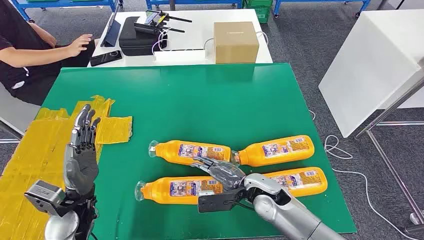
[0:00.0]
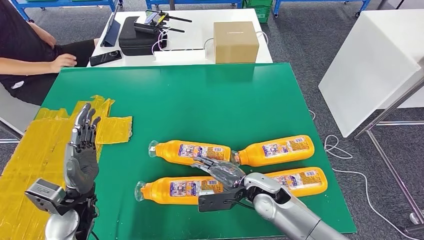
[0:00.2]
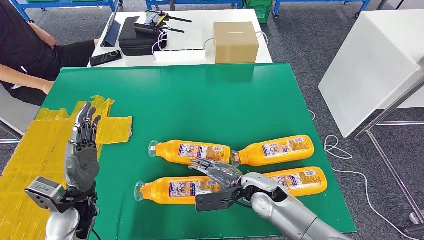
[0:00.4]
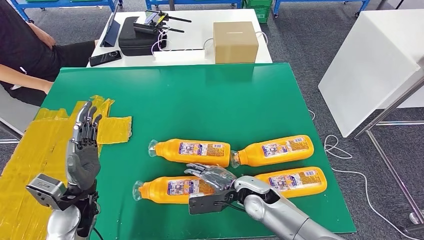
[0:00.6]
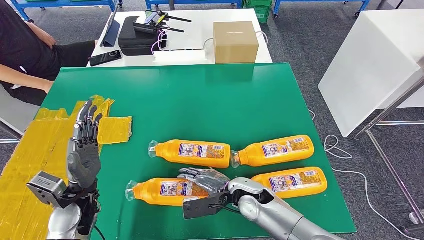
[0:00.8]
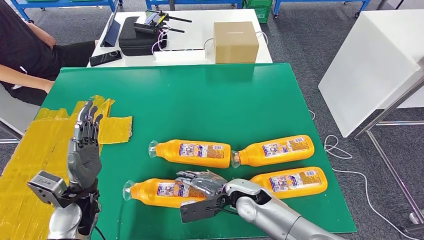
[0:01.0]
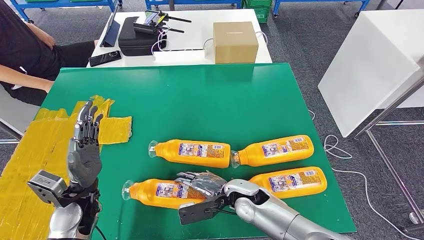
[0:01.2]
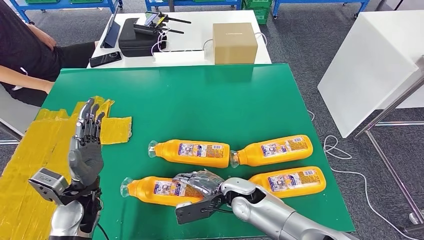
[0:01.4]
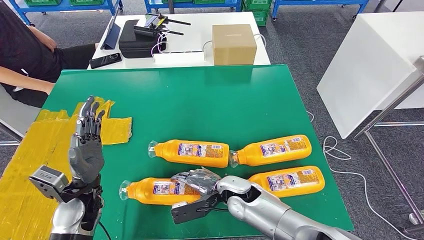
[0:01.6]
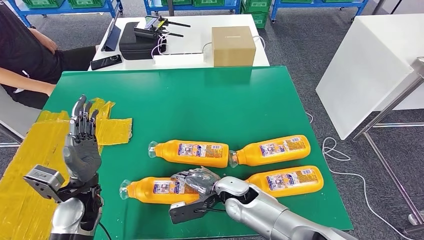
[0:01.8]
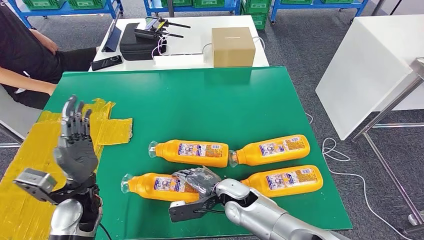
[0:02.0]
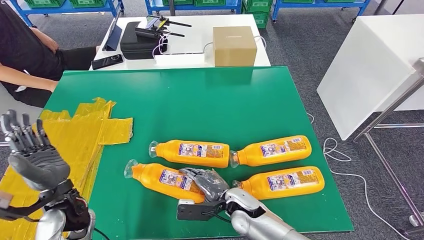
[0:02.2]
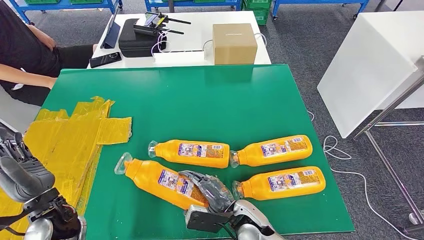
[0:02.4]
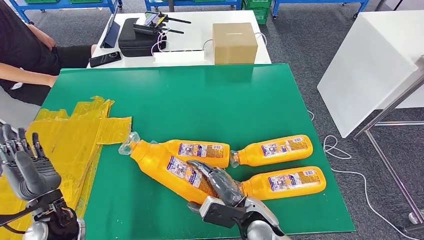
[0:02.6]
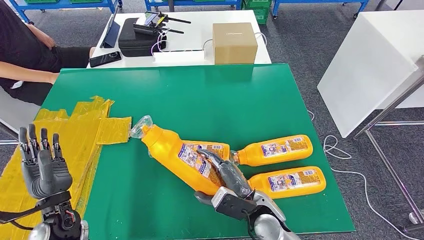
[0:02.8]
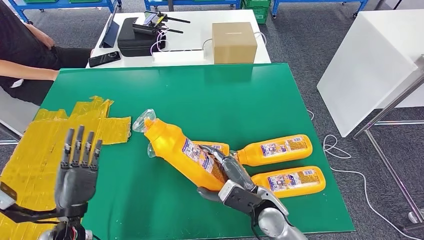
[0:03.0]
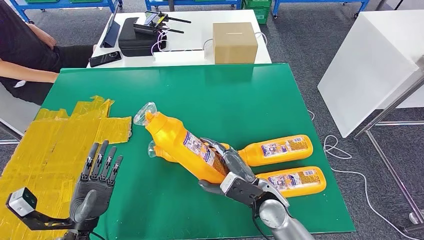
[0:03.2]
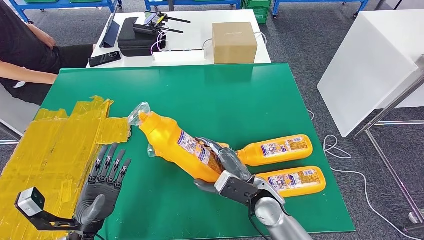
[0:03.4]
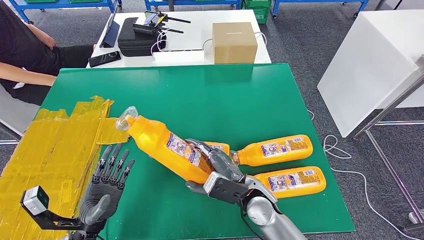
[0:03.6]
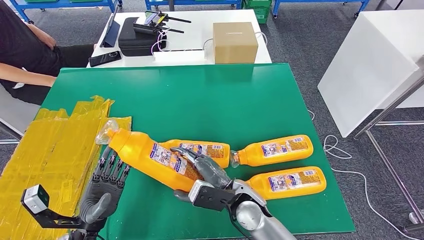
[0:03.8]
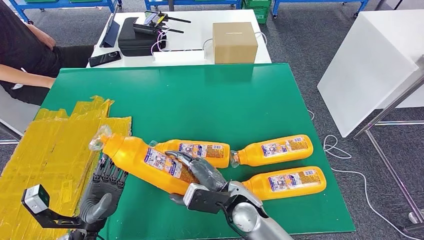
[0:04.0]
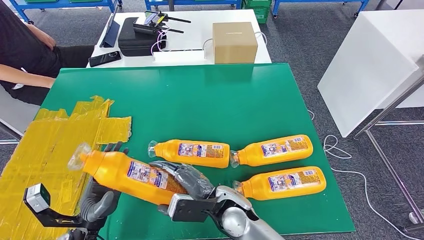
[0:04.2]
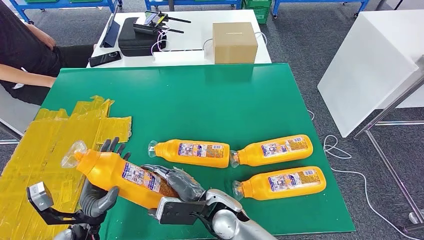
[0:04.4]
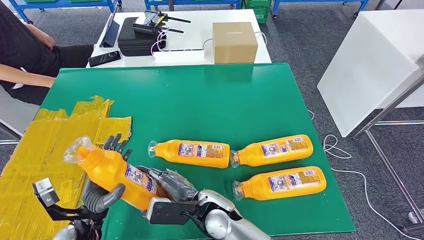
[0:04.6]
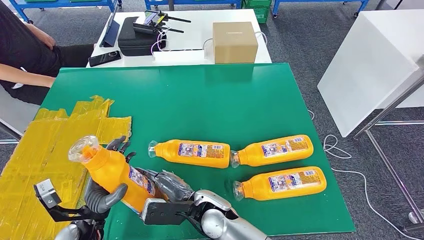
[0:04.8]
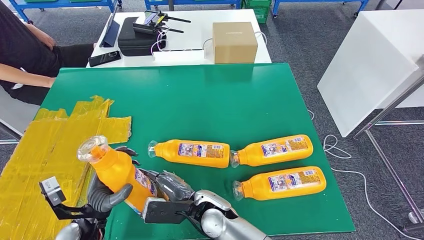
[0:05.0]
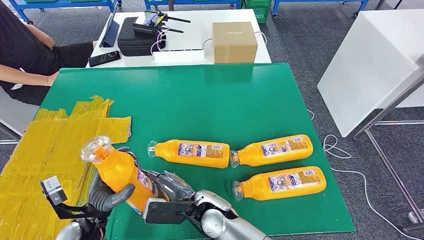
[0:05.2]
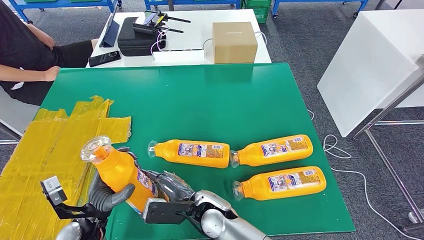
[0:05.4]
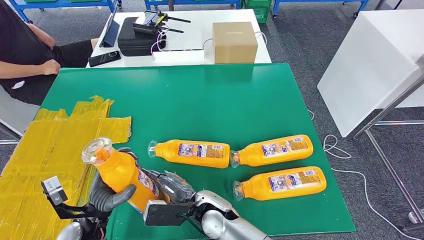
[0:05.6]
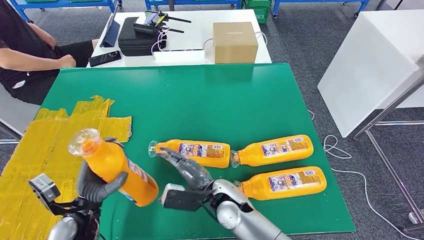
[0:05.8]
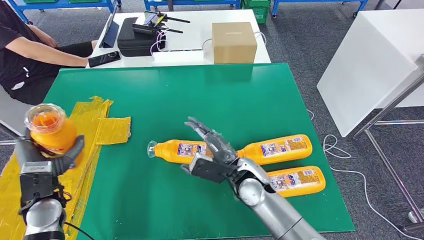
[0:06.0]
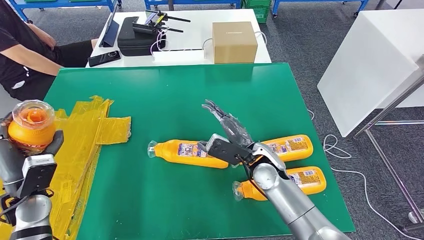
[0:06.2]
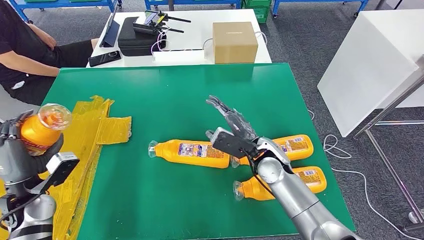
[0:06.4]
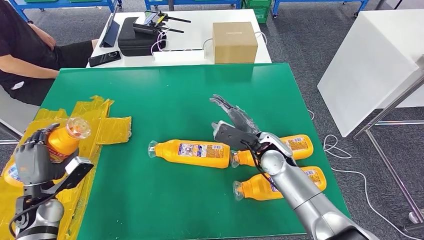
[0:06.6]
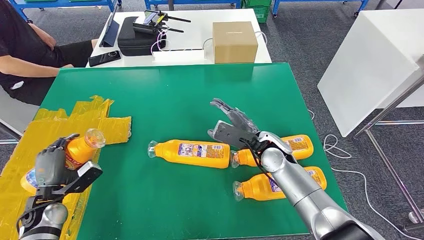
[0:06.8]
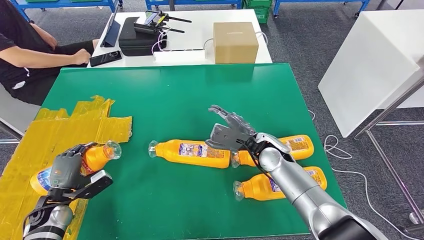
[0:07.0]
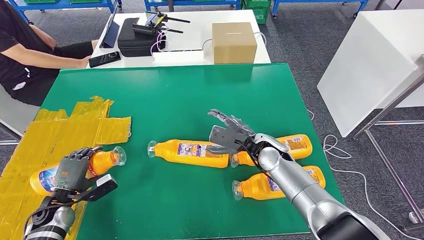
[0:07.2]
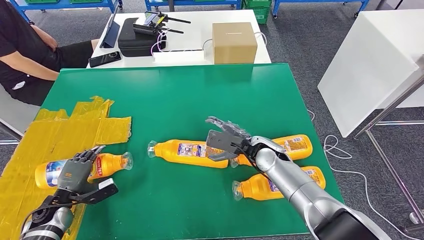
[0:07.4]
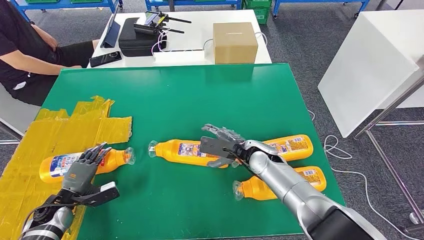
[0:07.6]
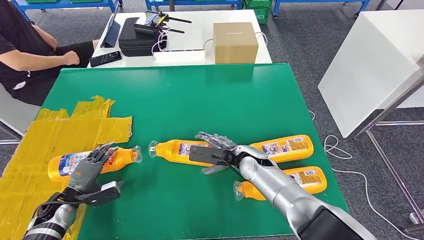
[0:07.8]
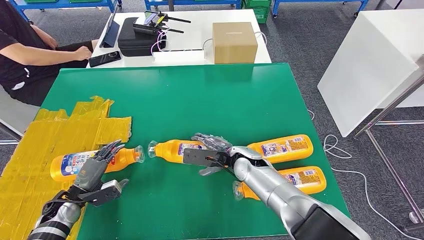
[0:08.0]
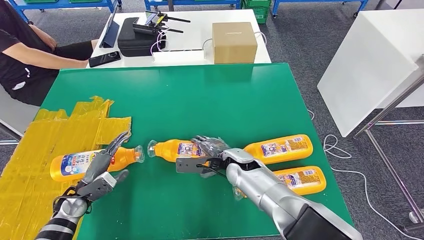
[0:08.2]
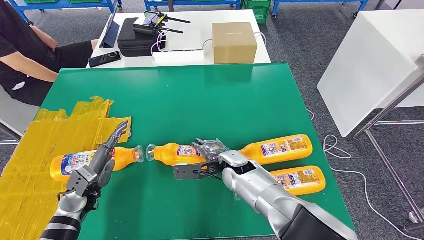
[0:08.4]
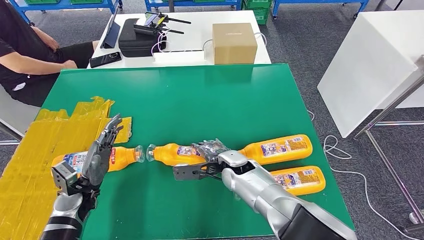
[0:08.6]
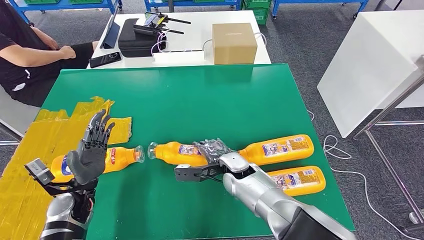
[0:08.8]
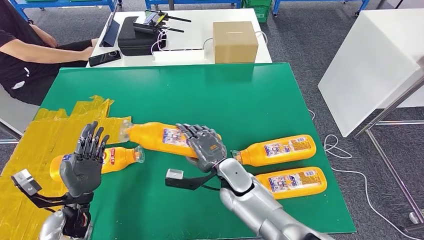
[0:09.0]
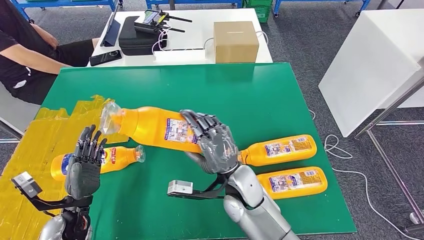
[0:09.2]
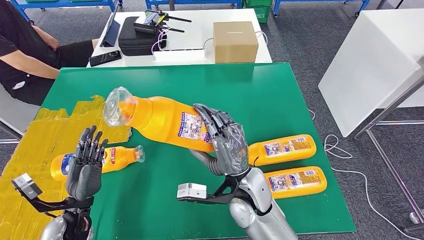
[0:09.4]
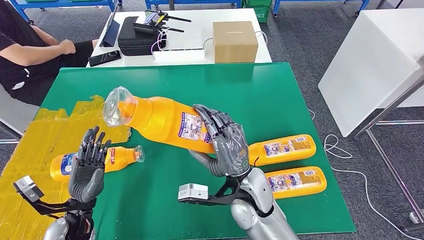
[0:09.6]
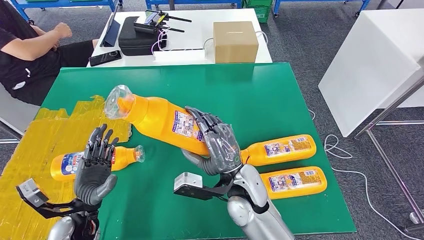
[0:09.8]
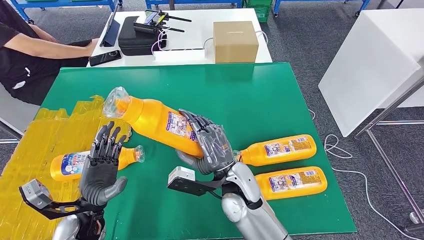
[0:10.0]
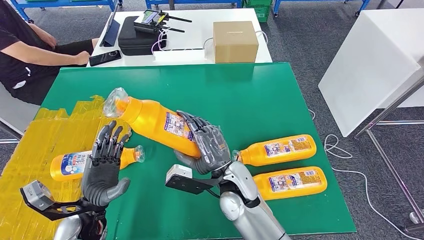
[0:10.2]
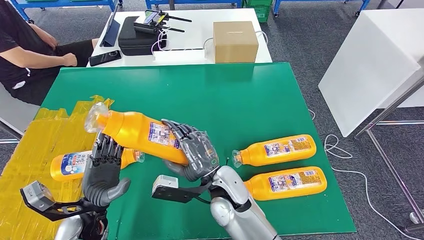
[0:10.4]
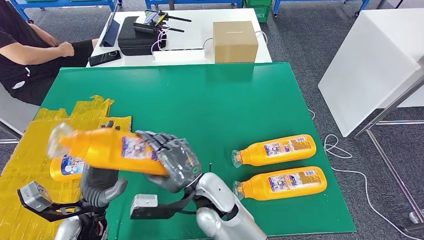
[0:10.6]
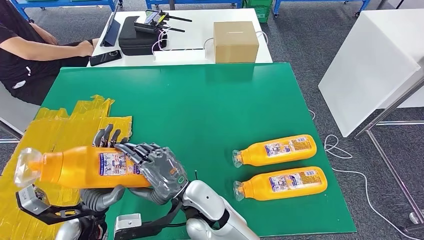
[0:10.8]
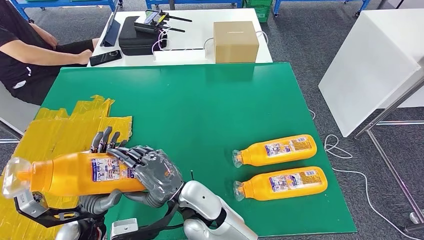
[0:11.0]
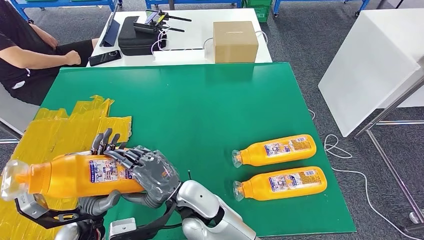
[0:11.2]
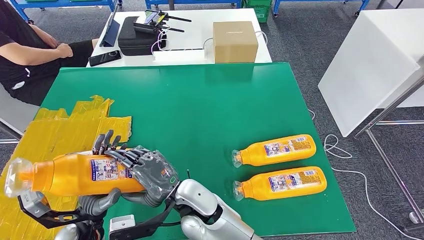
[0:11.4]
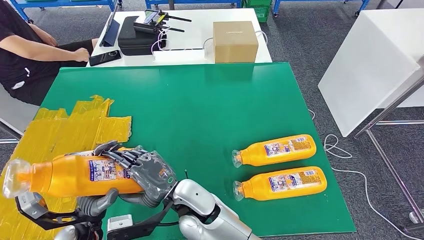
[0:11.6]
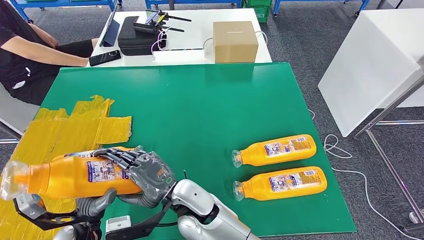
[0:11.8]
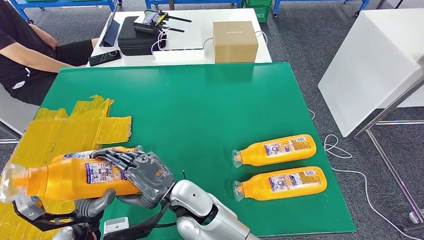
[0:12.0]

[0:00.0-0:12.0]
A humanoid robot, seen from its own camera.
Step, 0:00.0 to 0:03.4: Take the fast-moving consumer goods bottle from the table.
Step, 0:03.6 to 0:07.8: Flip the fast-moving consumer goods bottle to the front side.
Step, 0:08.2 to 0:11.2: Pick up the fast-moving consumer goods bottle from the table.
0:03.0 to 0:04.4: The right hand moves to the left, about 10 cm.
0:09.0 to 0:10.4: The right hand moves upward, roughly 5 cm; the left hand travels to the right by some 5 cm.
0:10.4 to 0:12.0: The right hand goes about 10 cm to the left.

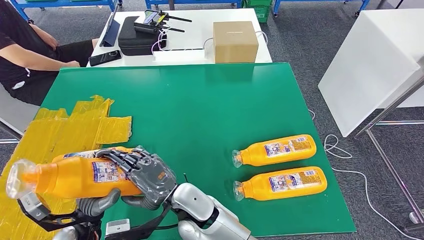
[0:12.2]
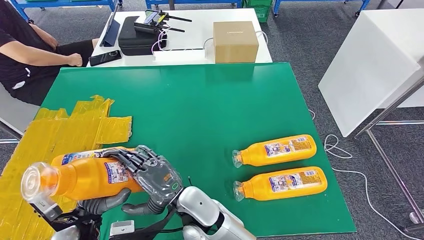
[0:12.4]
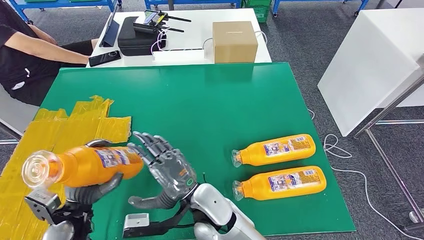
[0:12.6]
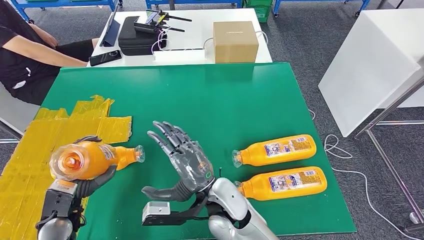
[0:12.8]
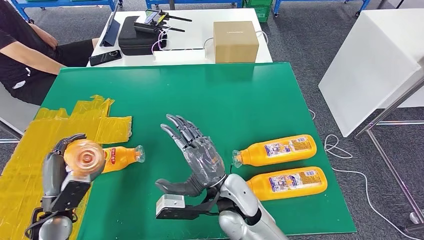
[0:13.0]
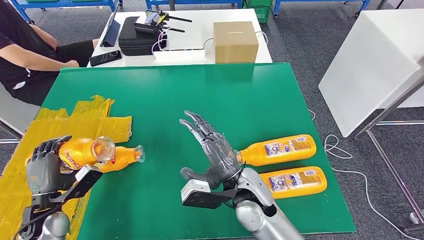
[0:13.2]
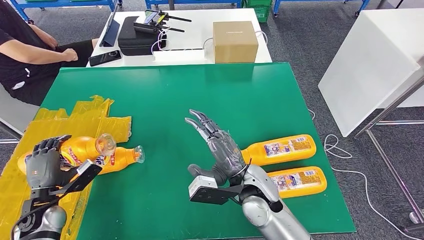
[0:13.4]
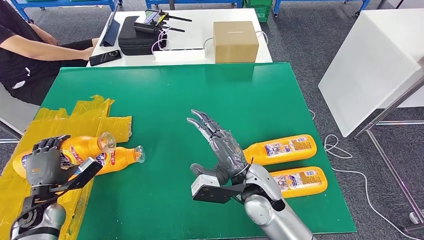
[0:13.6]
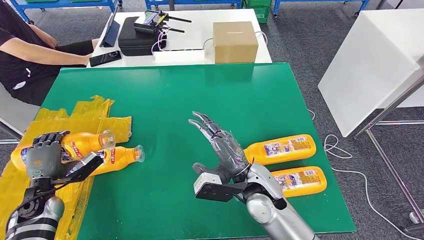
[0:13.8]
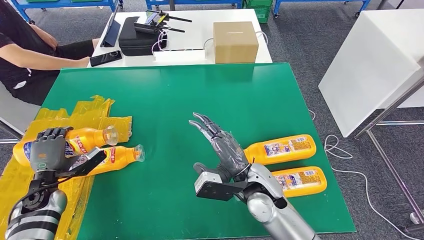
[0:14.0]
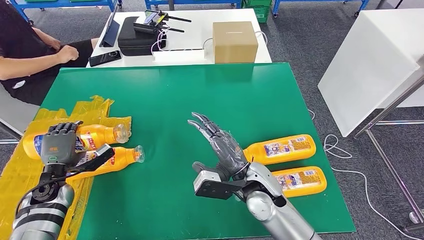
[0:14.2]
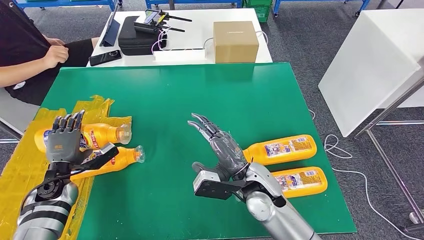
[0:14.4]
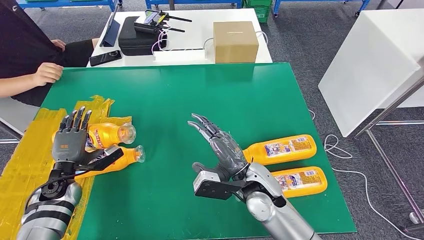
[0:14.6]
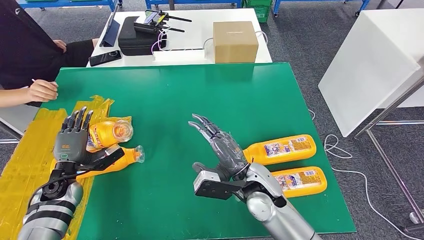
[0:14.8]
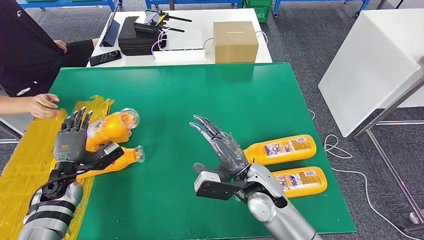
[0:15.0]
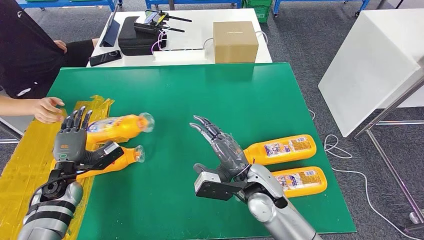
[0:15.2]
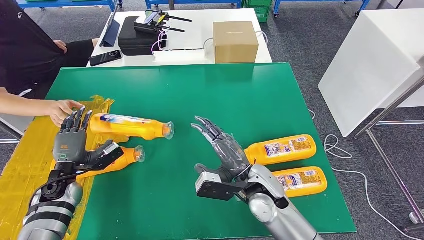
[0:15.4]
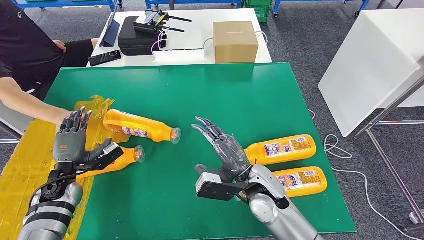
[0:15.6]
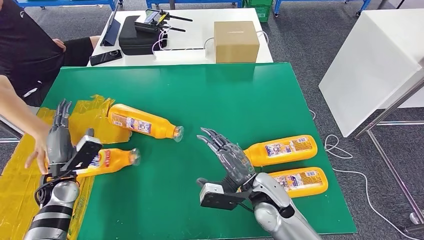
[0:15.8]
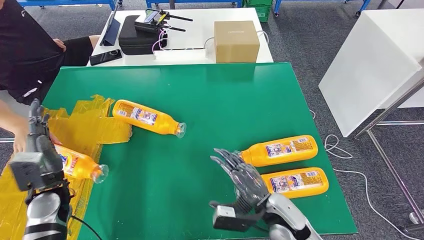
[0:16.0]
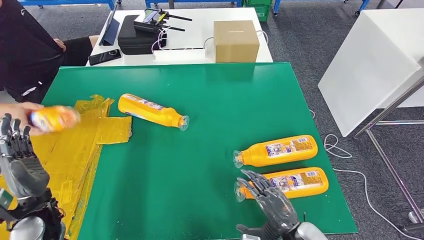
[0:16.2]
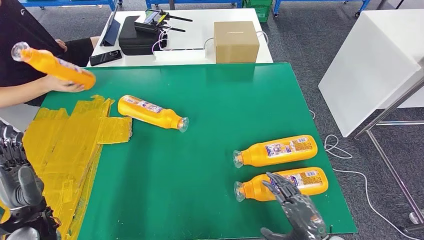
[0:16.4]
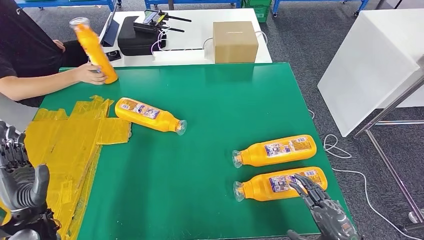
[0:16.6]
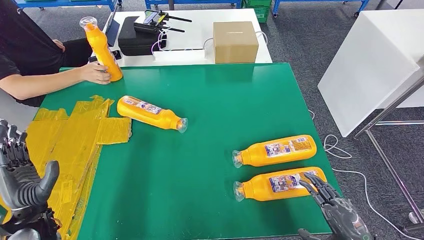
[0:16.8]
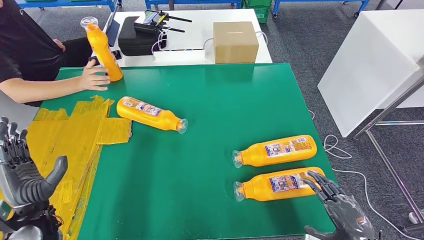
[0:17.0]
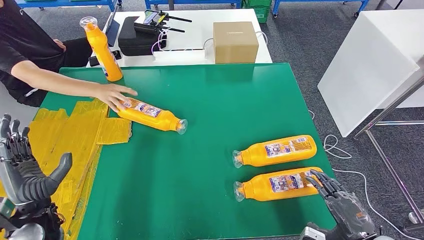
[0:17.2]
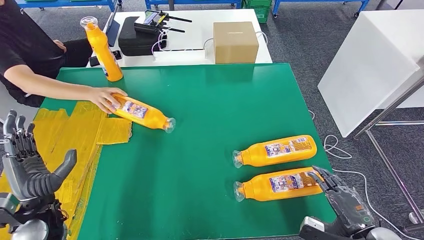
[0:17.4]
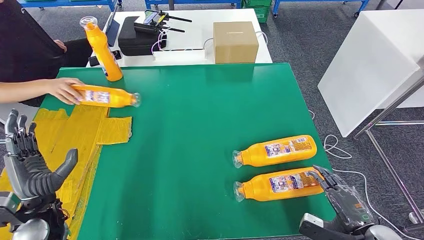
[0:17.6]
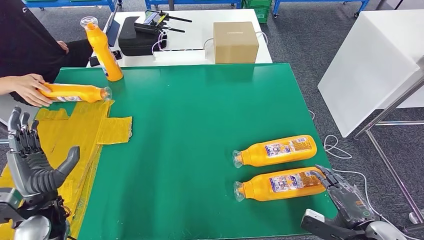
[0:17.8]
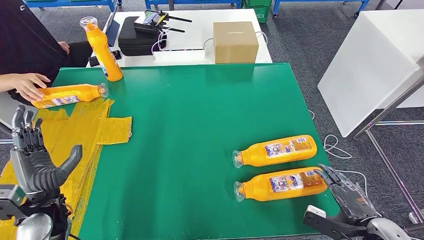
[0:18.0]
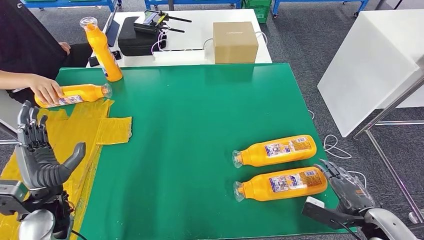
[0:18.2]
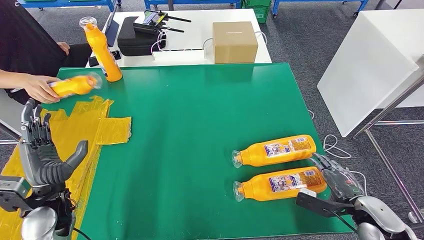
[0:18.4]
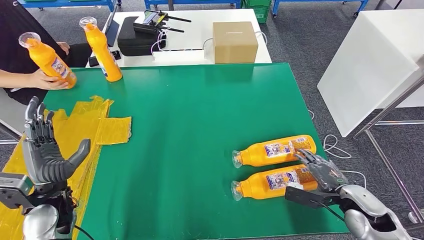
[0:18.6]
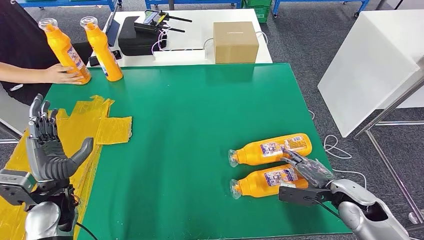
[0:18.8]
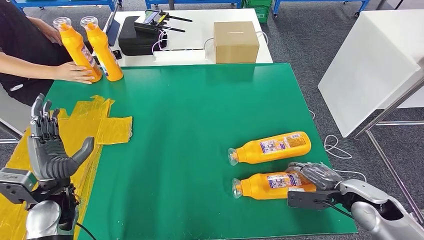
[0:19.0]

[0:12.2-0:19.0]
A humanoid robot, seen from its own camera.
Step, 0:12.2 to 0:15.8: Flip the fast-moving consumer goods bottle to the front side.
0:13.6 to 0:15.0: The left hand shifts roughly 5 cm forward.
0:16.2 to 0:17.6: The right hand heads to the right, covering some 15 cm.
